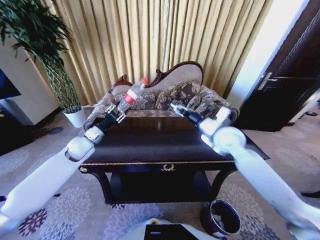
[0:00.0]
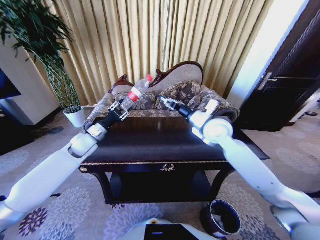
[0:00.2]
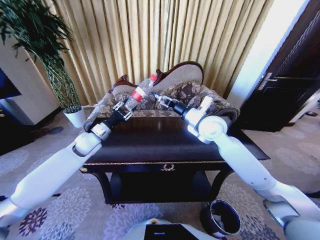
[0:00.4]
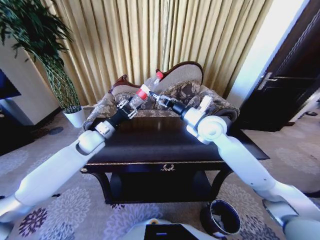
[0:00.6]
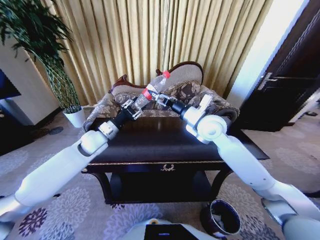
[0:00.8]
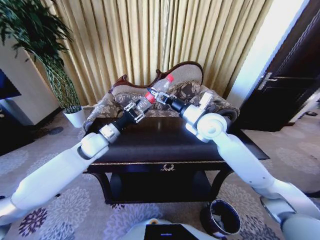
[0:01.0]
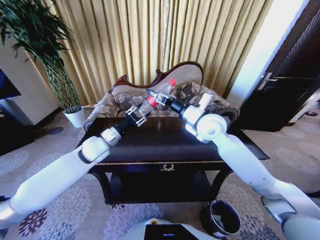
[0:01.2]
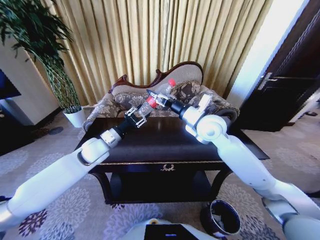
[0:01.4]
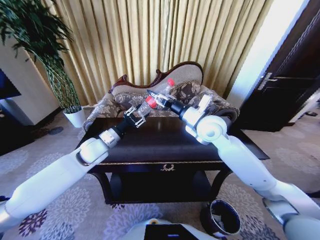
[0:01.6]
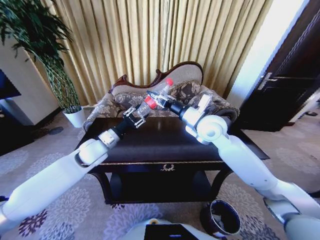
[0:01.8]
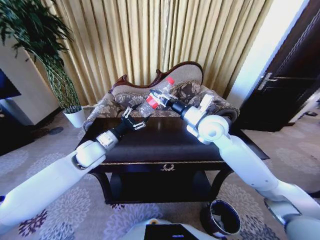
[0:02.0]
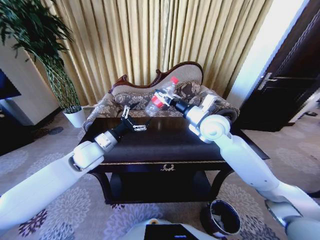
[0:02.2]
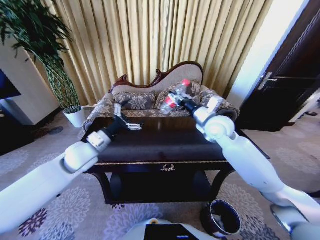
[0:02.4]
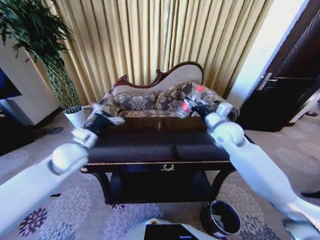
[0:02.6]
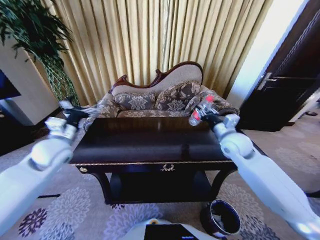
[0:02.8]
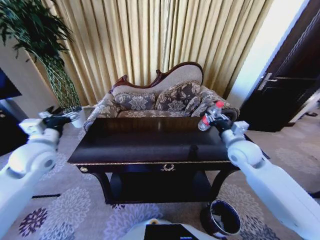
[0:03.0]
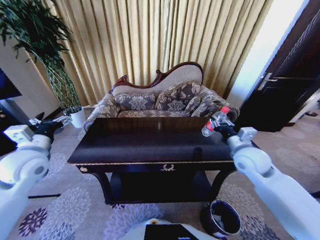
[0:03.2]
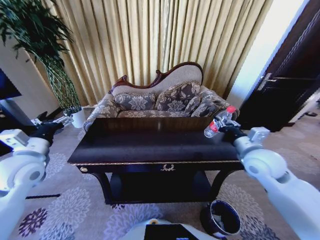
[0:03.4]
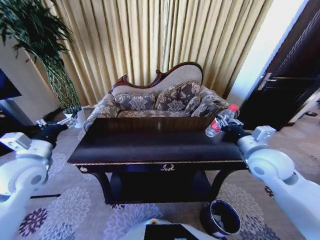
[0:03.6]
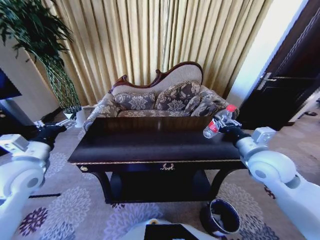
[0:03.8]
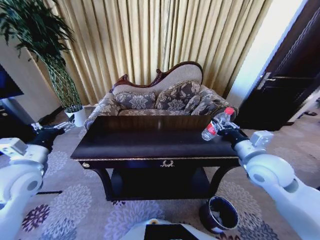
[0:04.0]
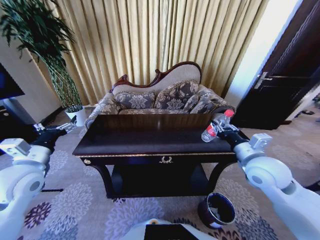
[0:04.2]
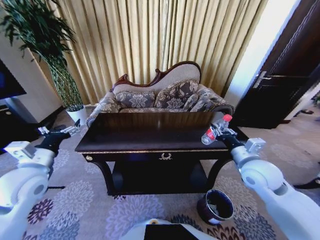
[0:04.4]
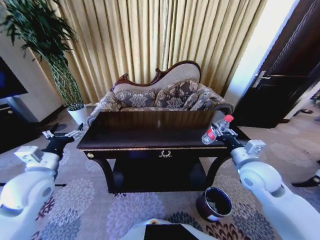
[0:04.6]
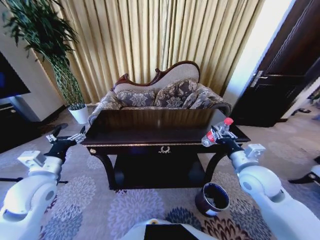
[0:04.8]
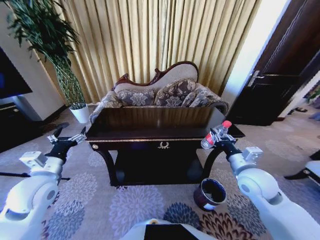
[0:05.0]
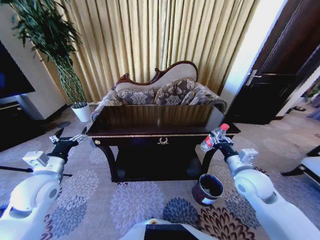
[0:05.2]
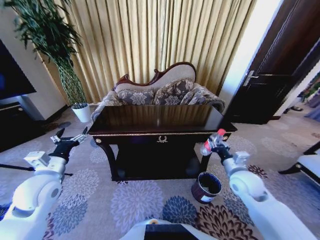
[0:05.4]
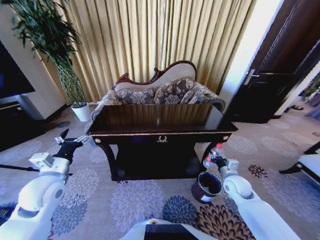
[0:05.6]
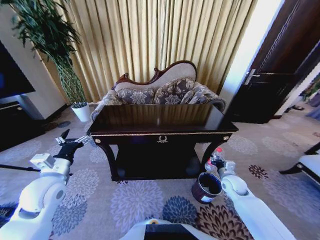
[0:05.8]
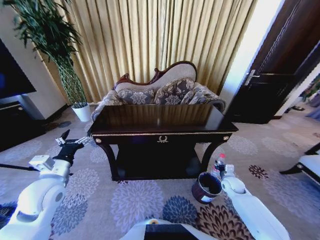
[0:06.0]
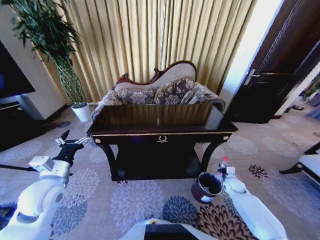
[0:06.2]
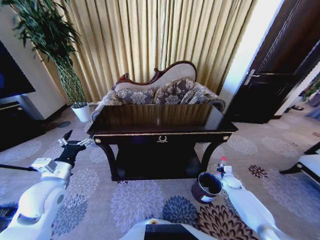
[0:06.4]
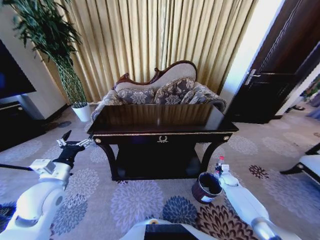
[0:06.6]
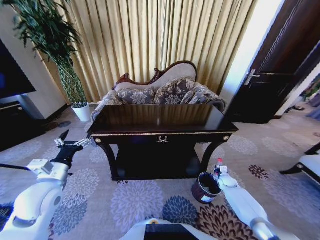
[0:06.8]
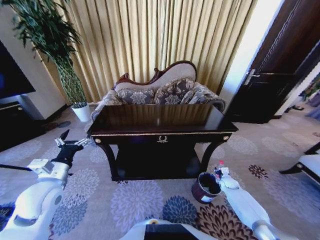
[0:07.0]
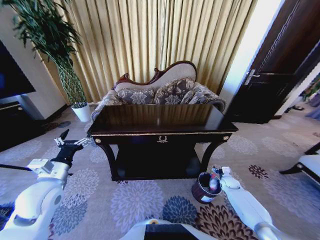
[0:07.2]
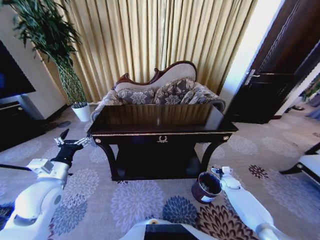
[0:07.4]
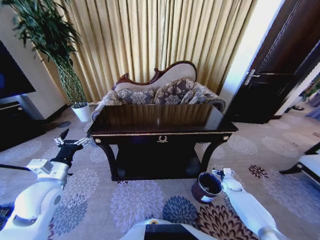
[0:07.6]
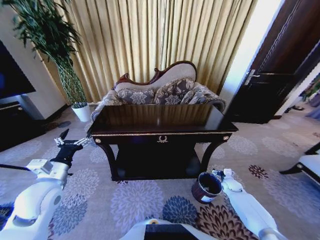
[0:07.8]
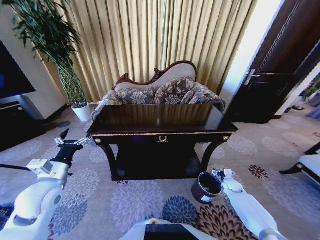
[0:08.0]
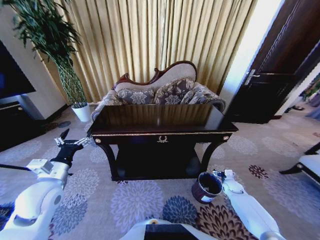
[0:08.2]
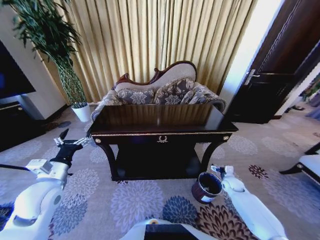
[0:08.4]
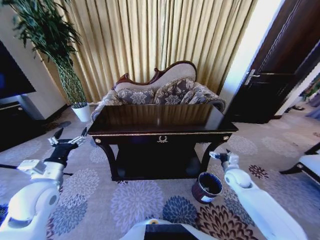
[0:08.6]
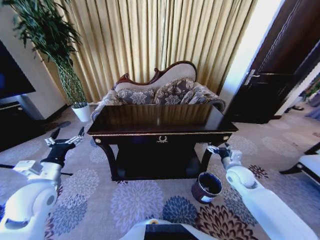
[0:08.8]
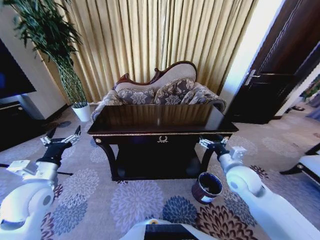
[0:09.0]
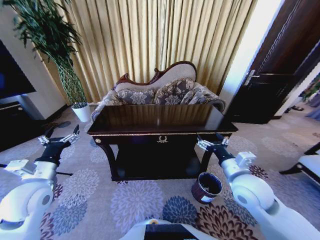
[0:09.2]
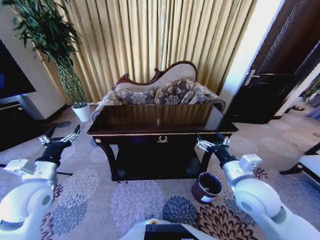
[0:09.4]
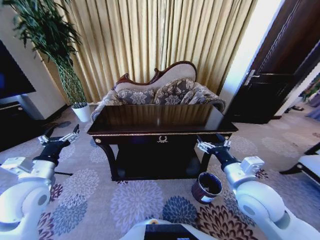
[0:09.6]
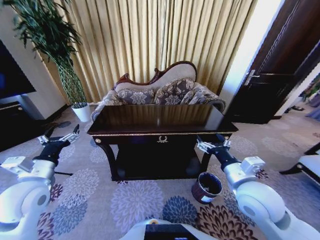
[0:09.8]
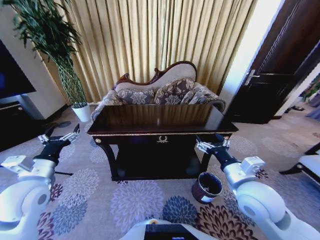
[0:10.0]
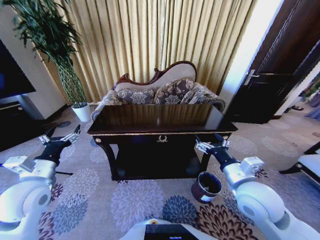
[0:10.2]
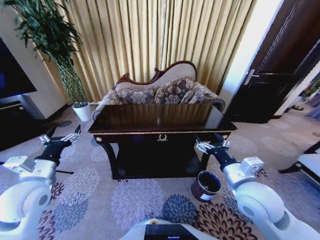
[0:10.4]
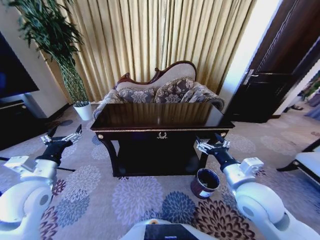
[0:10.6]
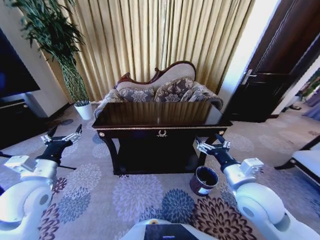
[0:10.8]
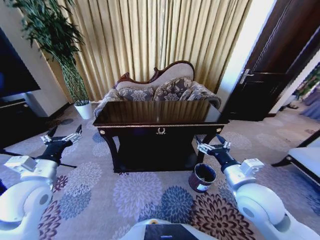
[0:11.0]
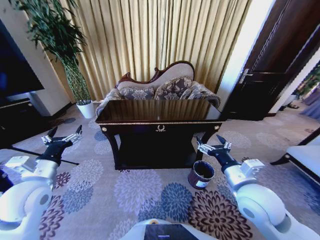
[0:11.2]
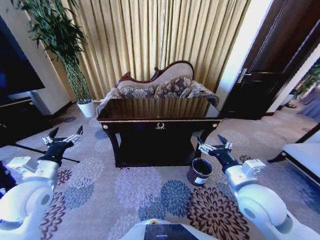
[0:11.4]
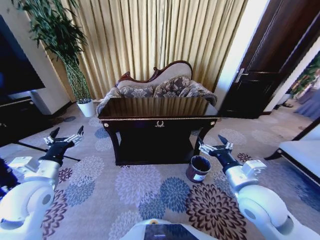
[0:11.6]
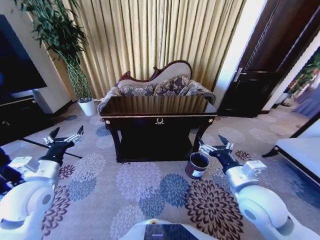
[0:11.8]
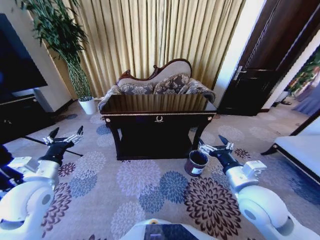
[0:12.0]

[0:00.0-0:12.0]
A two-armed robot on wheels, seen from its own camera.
Task of the whole recording: Move to the front of the table and place the trash on the table into the trash bin.
0:00.0 to 0:01.6: The left gripper is displaced to the right by roughly 5 cm; the right gripper is displaced to the left by approximately 5 cm, and closes.
0:01.6 to 0:03.0: The left gripper moves to the left and backward, approximately 15 cm, and opens up, while the right gripper travels to the right and downward by some 15 cm.
0:03.0 to 0:04.4: Both grippers travel together backward, some 10 cm.
0:04.4 to 0:06.0: The left gripper heads downward, covering roughly 5 cm; the right gripper travels downward by some 25 cm.
0:06.0 to 0:07.6: The right gripper heads downward, covering some 5 cm, and opens up.
0:07.6 to 0:09.0: The right gripper heads upward and to the left, covering approximately 30 cm.
0:09.0 to 0:10.4: The right gripper shifts some 10 cm backward and upward.

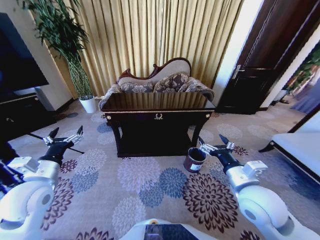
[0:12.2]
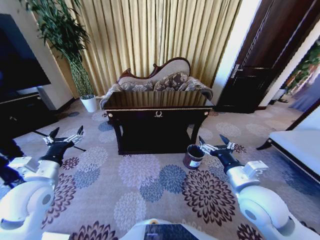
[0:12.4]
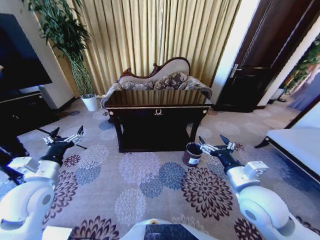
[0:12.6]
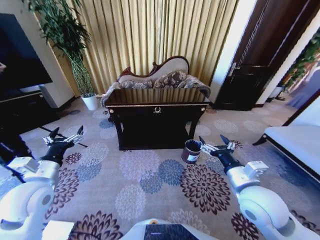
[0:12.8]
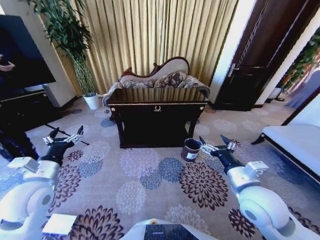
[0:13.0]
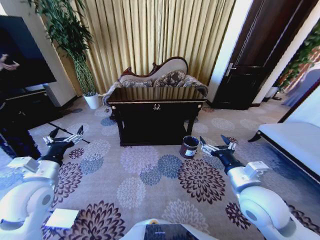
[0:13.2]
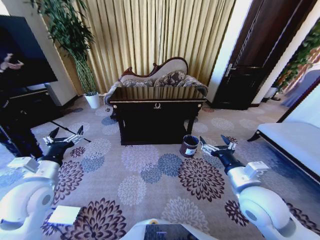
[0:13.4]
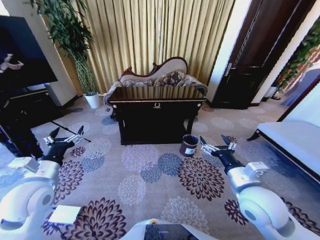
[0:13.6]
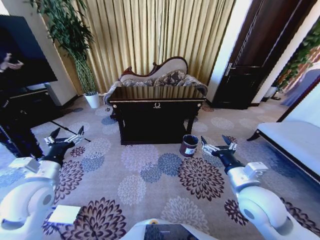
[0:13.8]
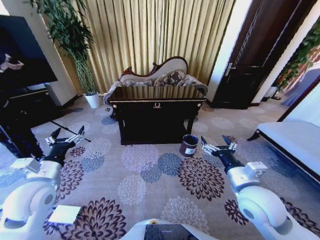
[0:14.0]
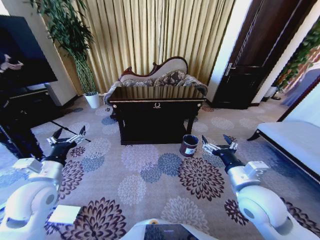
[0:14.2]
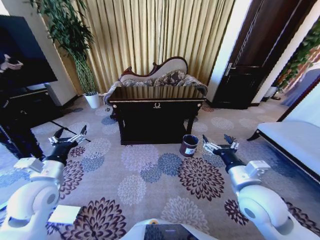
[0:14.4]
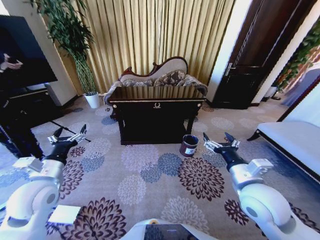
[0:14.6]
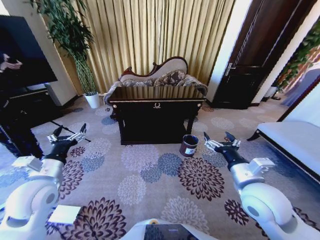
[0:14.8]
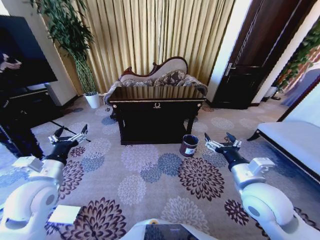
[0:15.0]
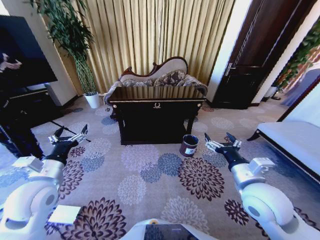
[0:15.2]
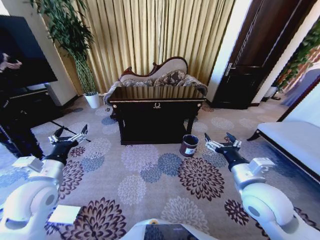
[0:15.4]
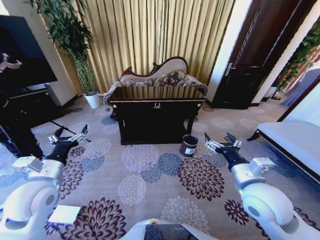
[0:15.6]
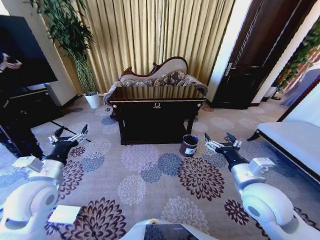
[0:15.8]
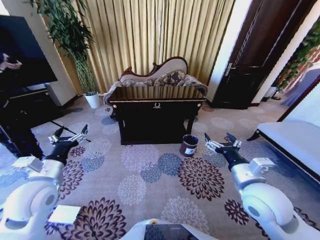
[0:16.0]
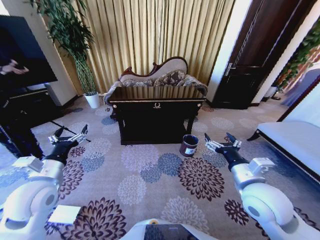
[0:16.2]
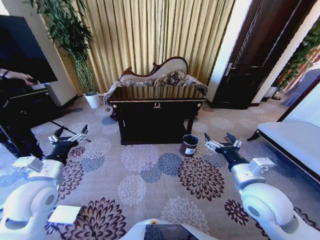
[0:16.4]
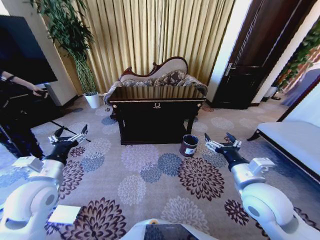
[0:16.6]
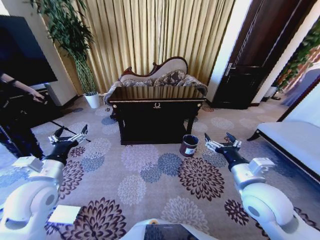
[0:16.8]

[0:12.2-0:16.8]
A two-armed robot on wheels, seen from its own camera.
Task of the whole recording: Move to the front of the table and place the trash on the table into the trash bin.
0:13.8 to 0:15.2: The grippers stay close to where they were, moving slightly.
0:15.2 to 0:16.8: Neither gripper changes place.
